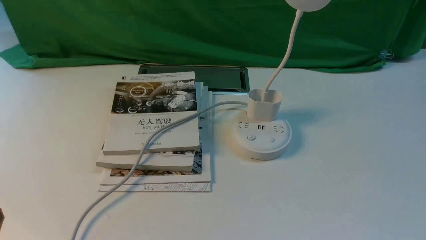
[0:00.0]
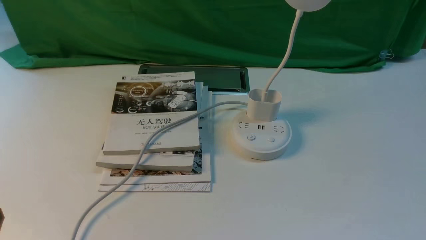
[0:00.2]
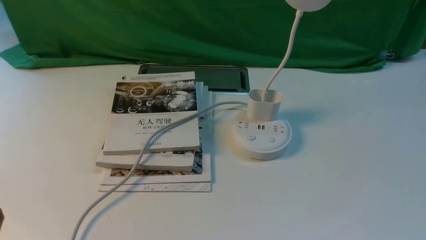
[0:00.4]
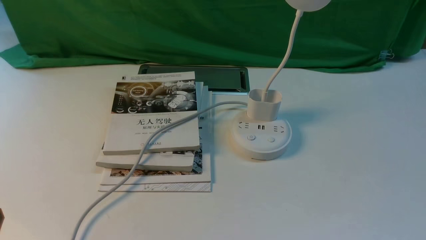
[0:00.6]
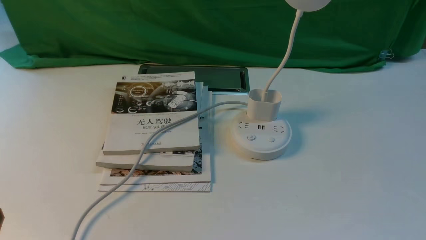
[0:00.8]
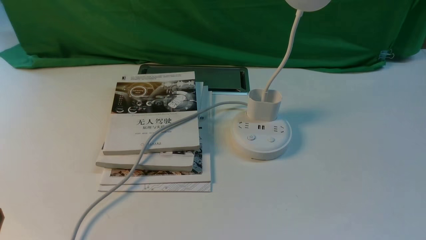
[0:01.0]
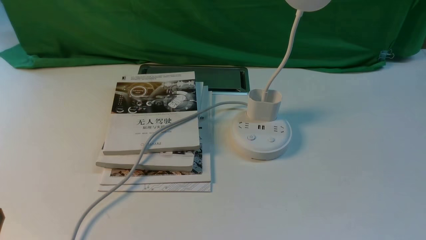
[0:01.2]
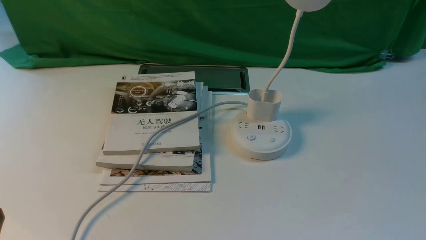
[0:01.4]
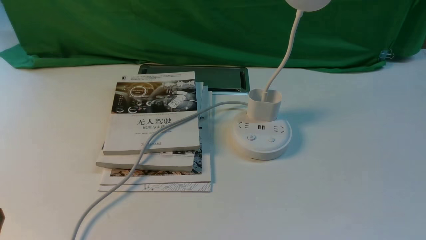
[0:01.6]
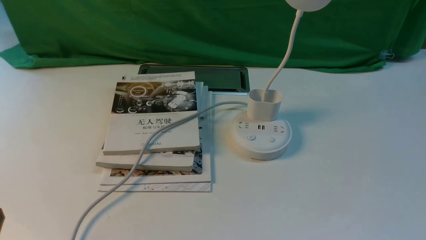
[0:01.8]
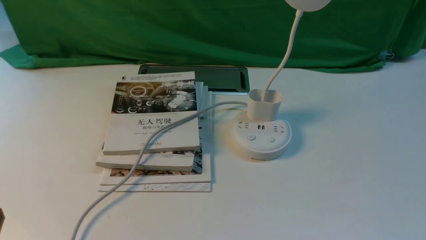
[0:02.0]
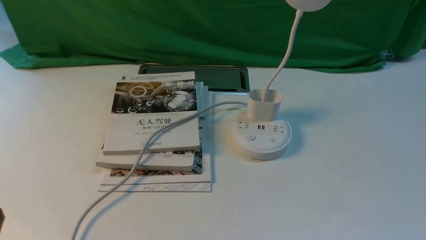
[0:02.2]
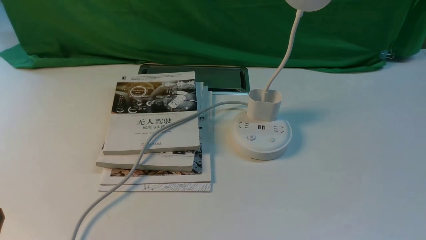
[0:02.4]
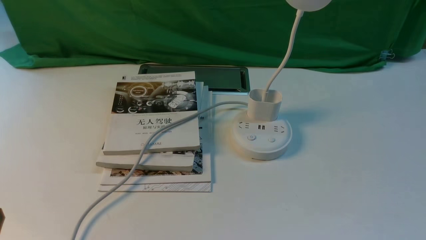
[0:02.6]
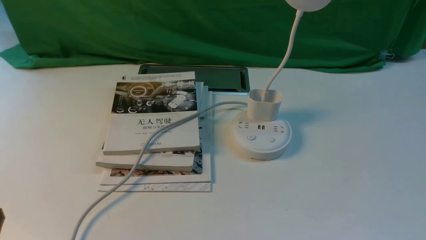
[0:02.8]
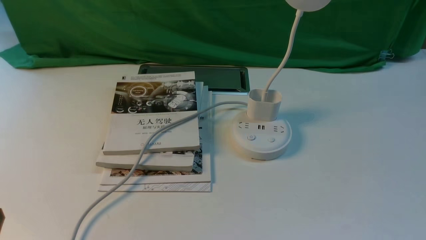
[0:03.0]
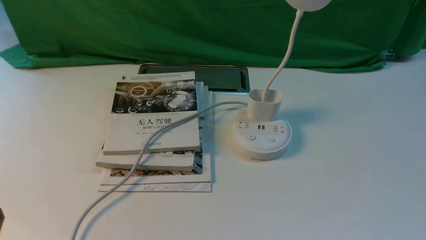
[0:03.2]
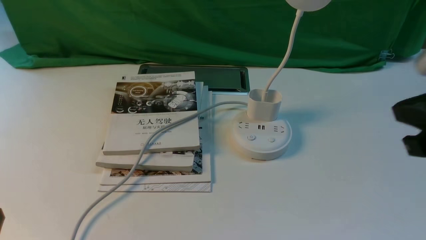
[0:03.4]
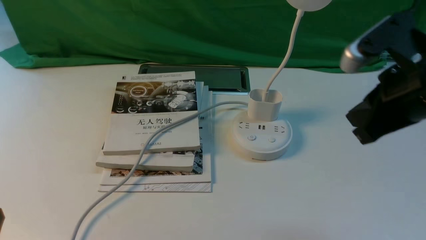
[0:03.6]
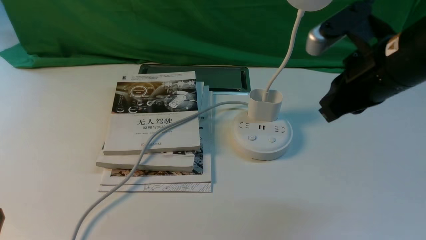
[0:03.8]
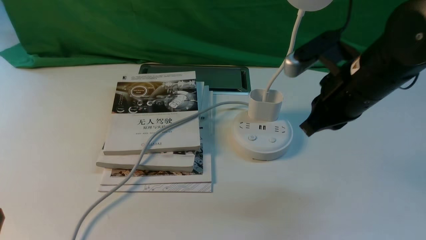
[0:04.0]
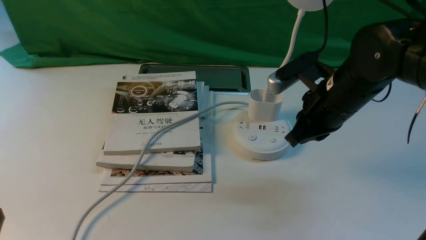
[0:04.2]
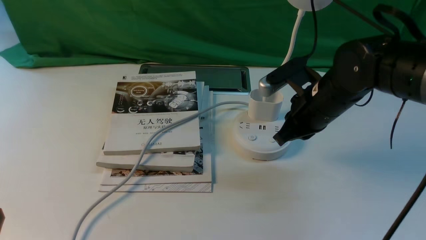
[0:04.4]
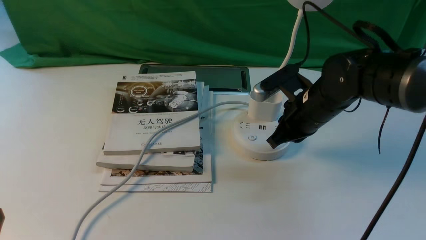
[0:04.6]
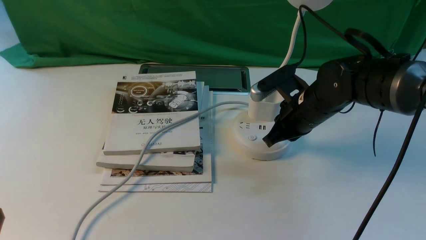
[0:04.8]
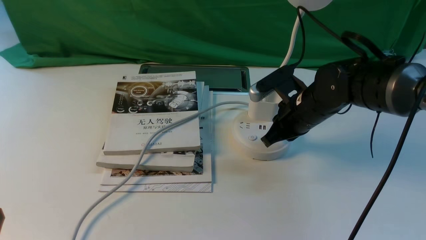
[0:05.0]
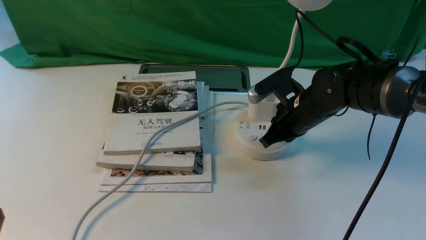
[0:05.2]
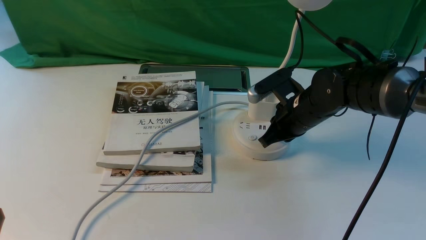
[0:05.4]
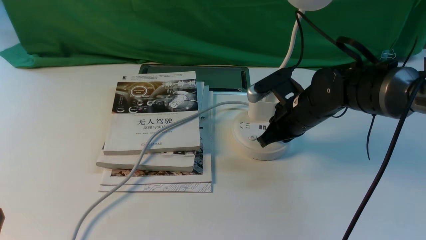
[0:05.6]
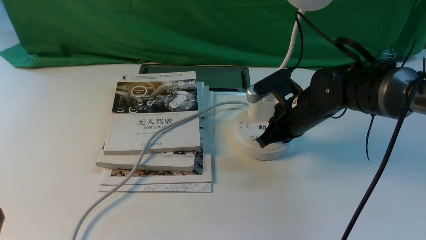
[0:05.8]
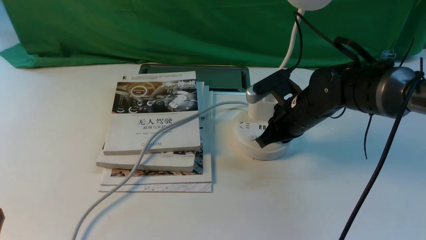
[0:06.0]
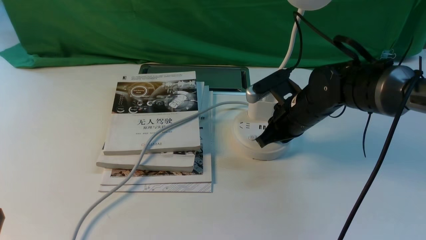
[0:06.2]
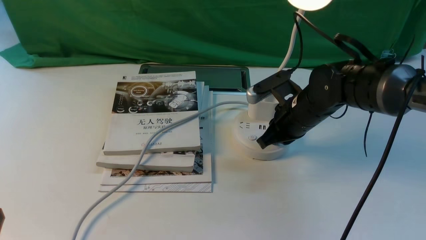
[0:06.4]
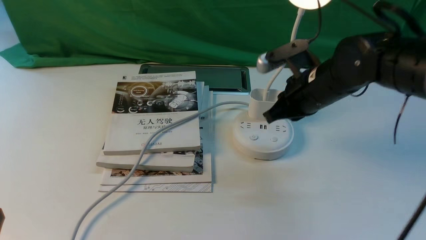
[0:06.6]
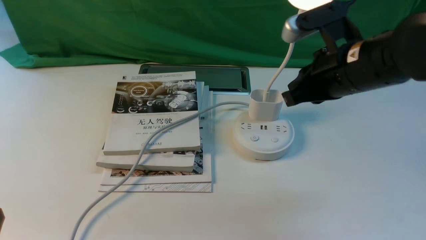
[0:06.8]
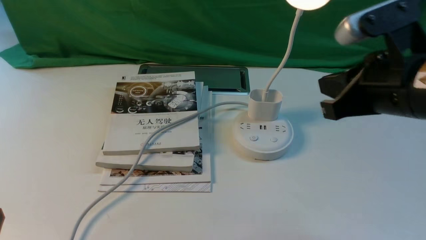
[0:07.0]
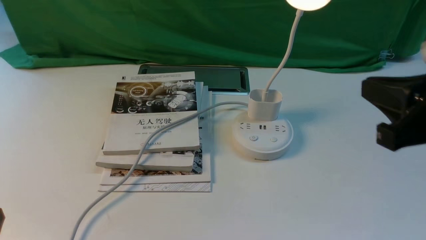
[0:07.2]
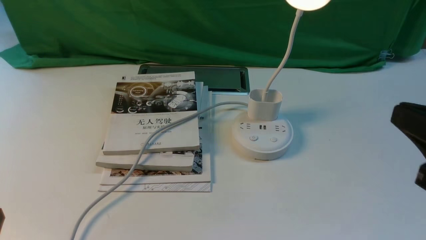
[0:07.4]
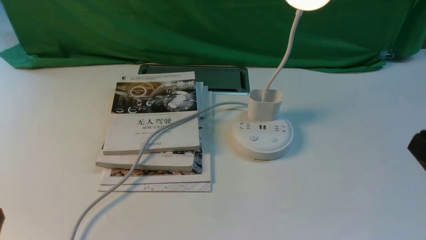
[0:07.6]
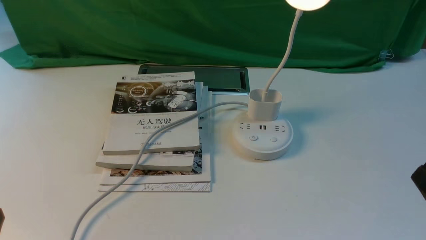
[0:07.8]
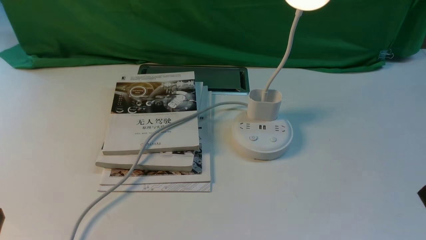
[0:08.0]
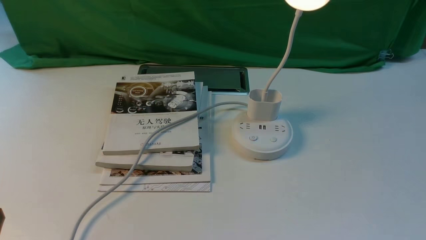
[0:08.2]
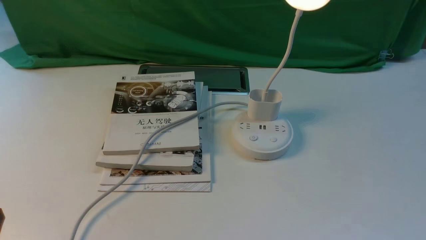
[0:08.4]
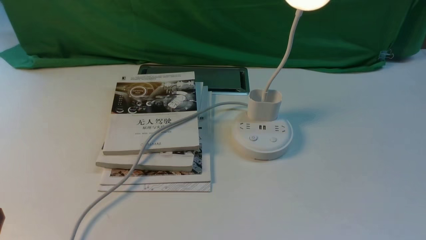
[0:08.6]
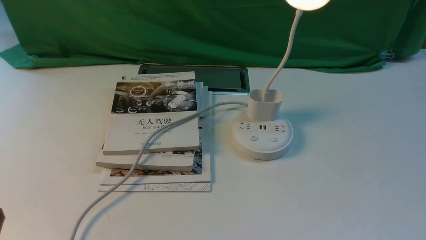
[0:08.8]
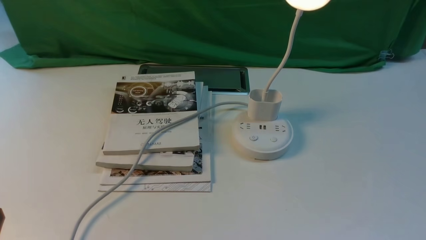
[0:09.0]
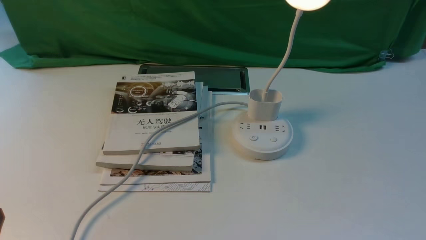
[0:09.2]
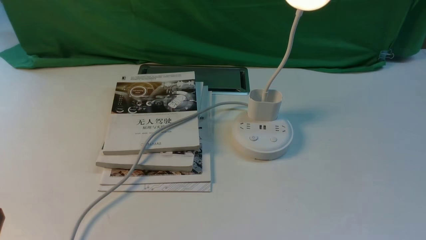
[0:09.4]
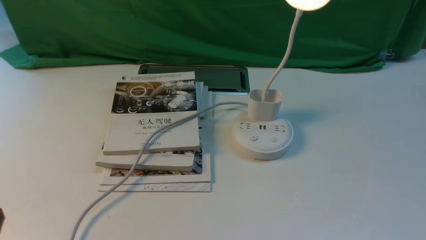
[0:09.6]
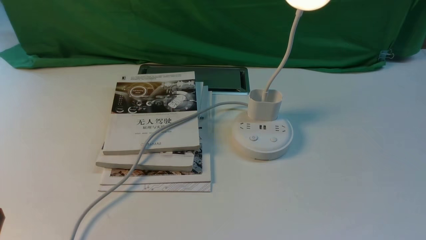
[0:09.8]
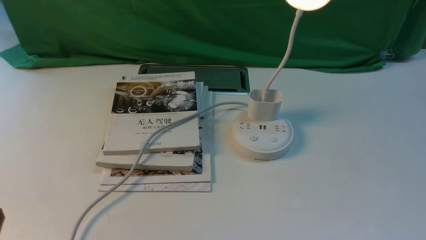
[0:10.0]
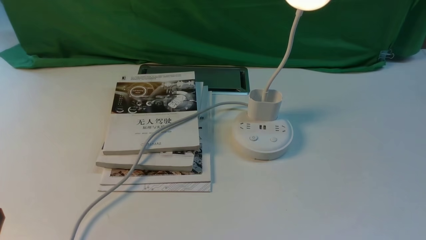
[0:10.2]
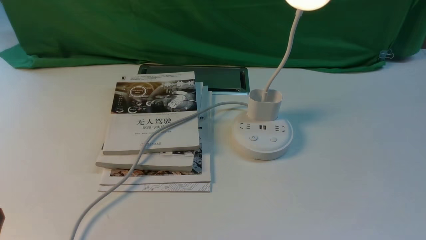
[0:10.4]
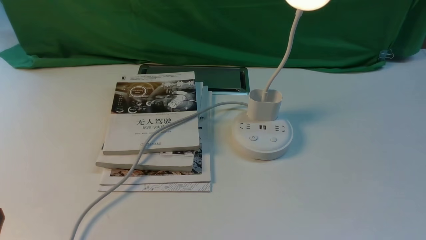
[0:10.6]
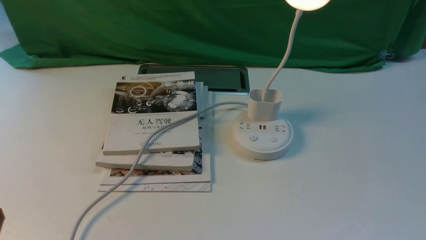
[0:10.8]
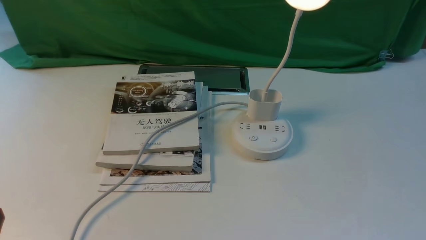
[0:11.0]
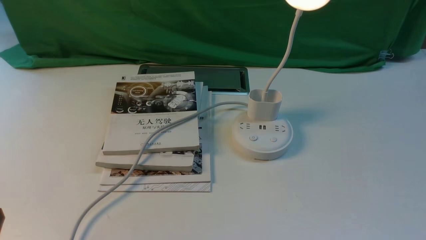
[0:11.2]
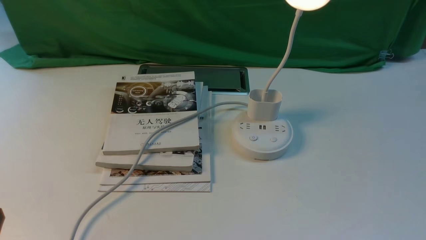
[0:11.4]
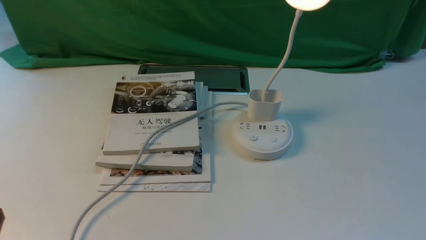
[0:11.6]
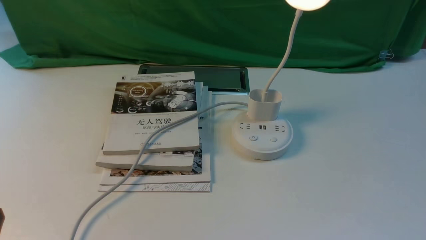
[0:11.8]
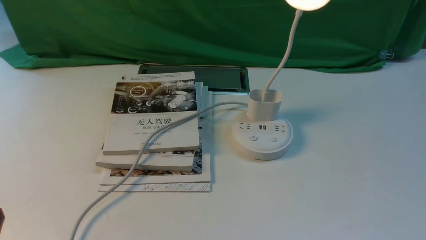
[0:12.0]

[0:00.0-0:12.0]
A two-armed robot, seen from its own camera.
Step, 0:00.0 to 0:06.6: use the right arm to press the button switch on the lamp holder.
0:00.0 to 0:01.6: Neither gripper changes place.
0:03.0 to 0:04.4: The right gripper moves forward, to the left and downward, some 35 cm.
0:04.4 to 0:06.0: The right gripper goes approximately 5 cm downward.
0:06.0 to 0:07.6: The right gripper shifts some 35 cm backward, to the right and upward.
0:09.0 to 0:12.0: Both grippers stay about where they are.
